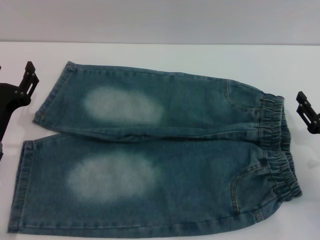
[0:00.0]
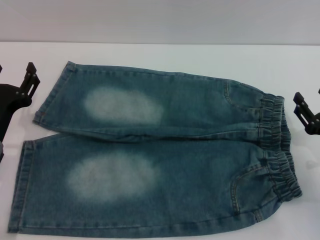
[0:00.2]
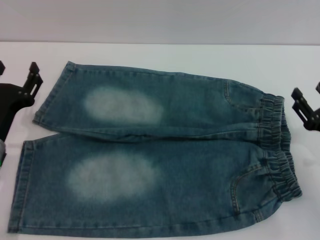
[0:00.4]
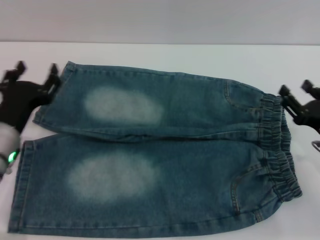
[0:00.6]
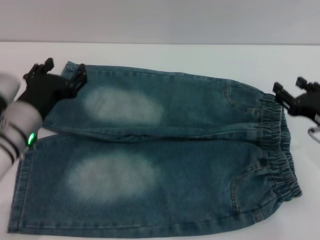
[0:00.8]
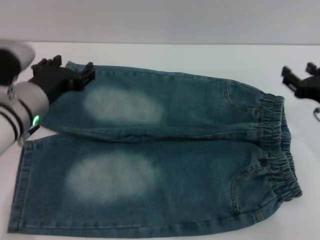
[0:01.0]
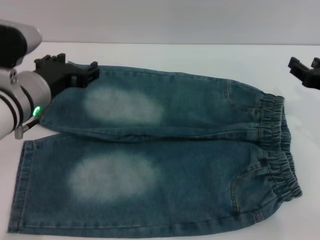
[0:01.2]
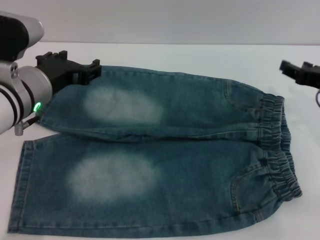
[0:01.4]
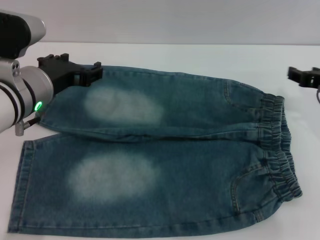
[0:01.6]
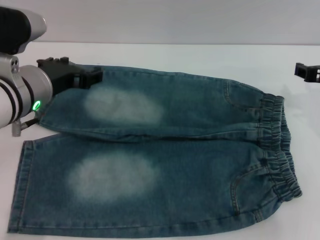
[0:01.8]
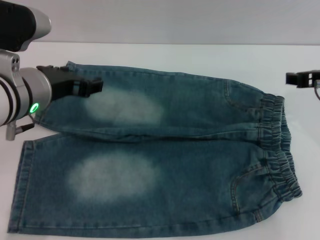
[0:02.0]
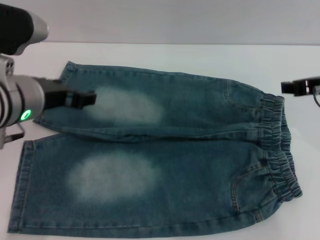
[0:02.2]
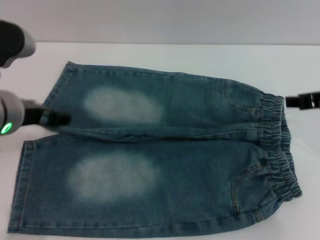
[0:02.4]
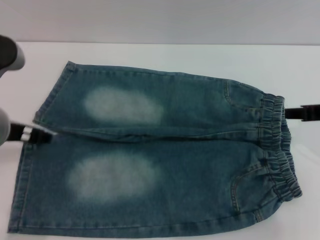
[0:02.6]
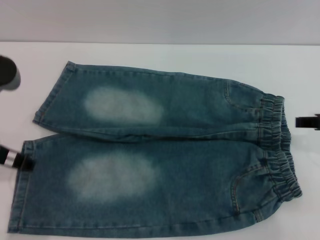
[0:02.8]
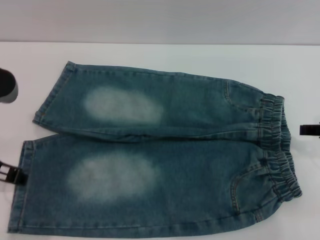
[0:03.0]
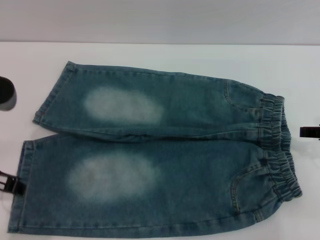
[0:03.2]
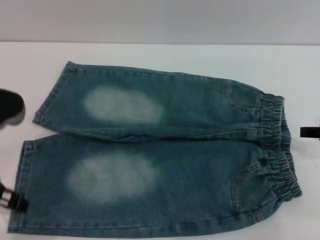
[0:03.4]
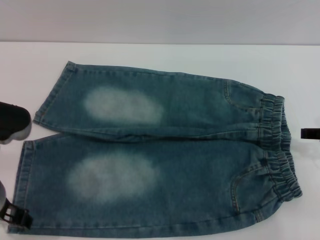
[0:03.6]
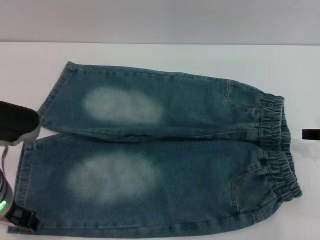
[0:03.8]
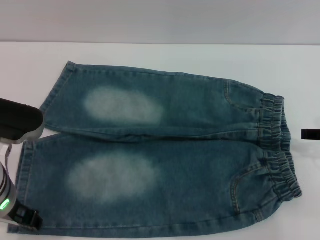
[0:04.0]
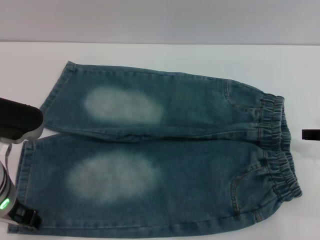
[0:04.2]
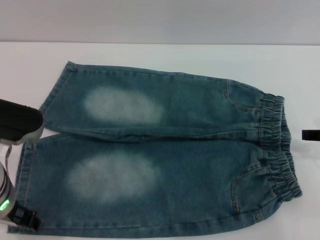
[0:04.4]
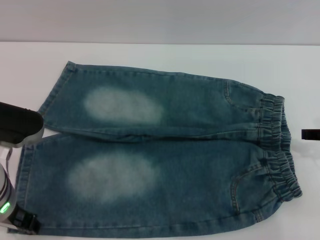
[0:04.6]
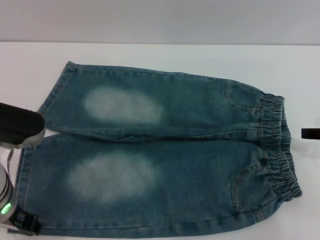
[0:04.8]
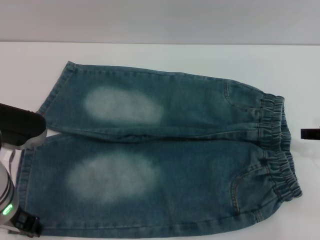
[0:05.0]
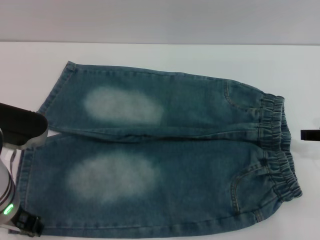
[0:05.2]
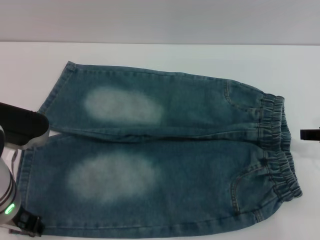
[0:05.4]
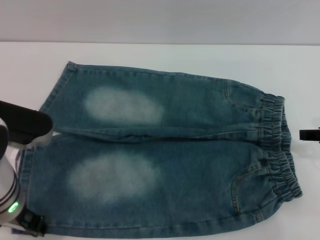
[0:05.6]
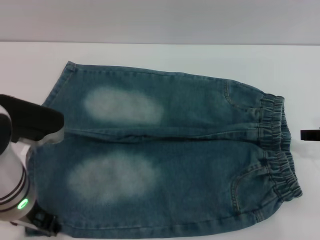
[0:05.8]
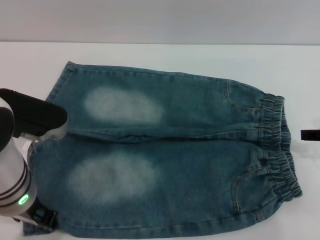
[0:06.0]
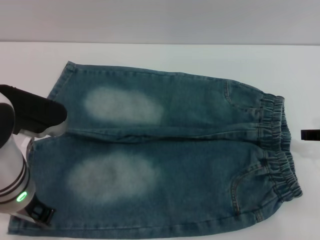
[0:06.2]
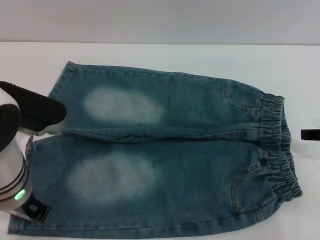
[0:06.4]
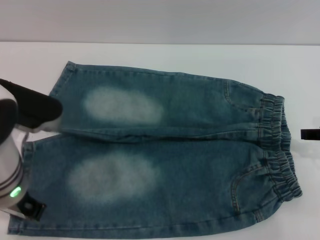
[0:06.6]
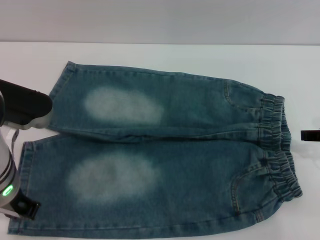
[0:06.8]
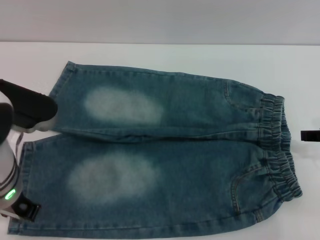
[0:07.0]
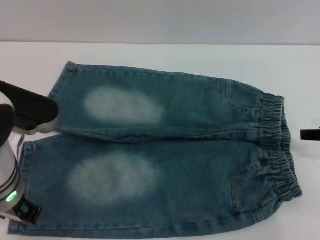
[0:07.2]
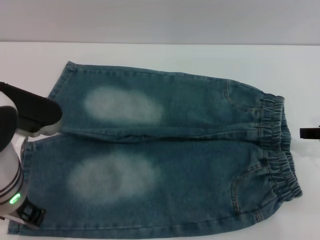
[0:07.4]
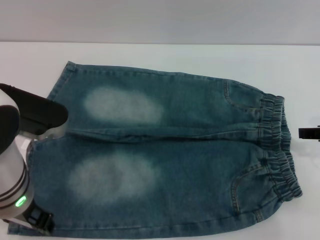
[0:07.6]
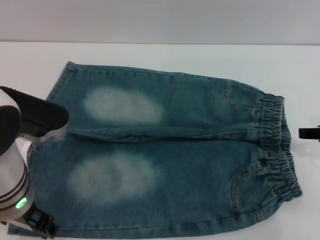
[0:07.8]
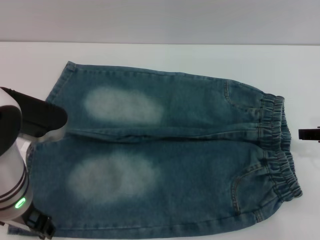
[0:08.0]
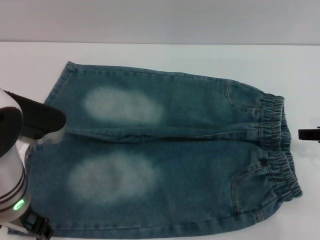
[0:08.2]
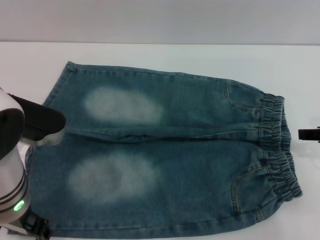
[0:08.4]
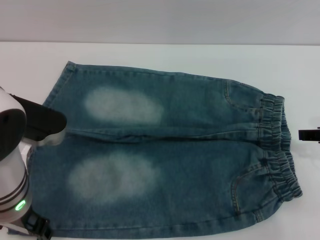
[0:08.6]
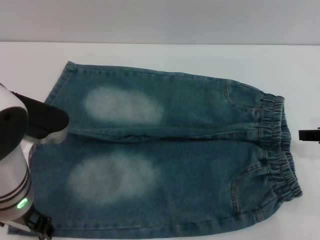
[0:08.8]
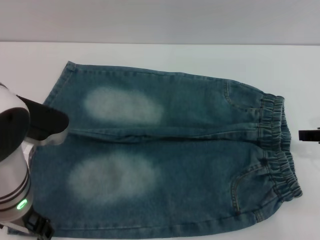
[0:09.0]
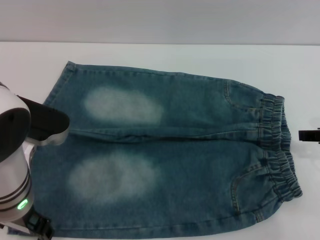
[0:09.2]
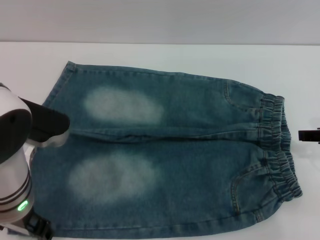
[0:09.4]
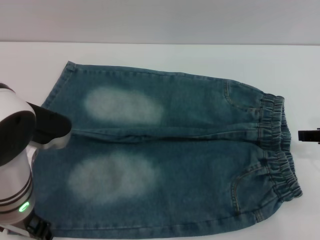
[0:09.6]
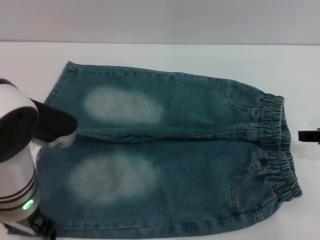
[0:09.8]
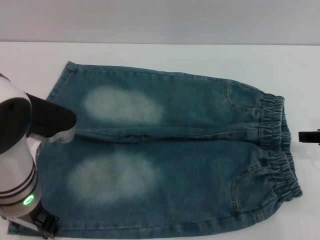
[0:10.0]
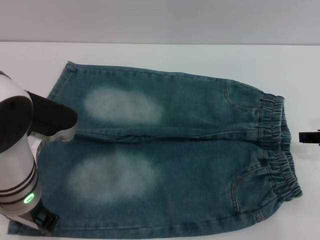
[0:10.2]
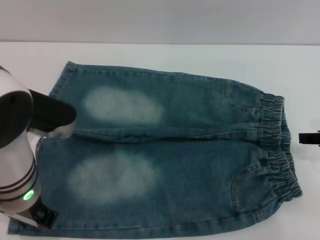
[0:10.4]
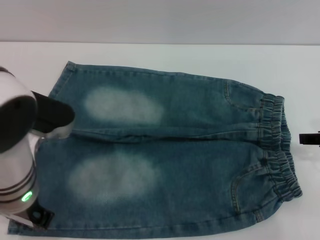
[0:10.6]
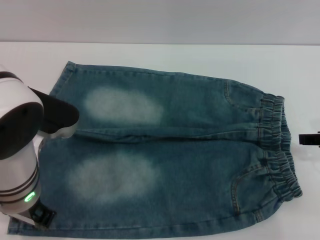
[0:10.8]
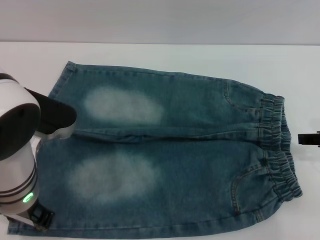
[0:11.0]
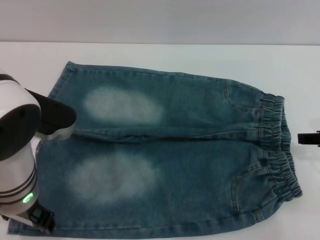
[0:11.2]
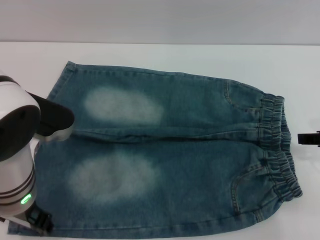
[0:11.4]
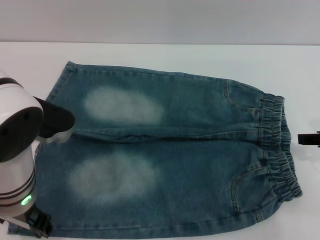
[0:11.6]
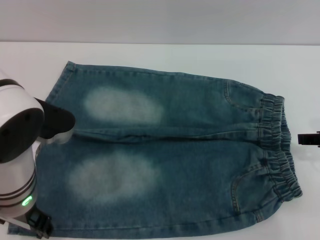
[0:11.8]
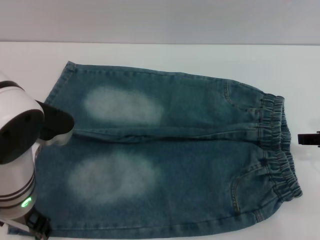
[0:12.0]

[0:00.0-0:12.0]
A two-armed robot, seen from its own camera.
0:00.0 to 0:01.6: The right gripper is displaced upward and forward by approximately 15 cm; the left gripper moves upward, to the right and forward, some 15 cm.
0:01.6 to 0:03.0: Both grippers travel together backward, about 5 cm.
0:03.0 to 0:06.0: The grippers stay close to where they were, moving slightly.
0:06.0 to 0:07.6: The left gripper closes, then opens again.
0:07.6 to 0:09.0: The left gripper opens its fingers.
0:09.0 to 0:10.4: The left gripper closes up.
0:10.4 to 0:12.0: The left gripper opens its fingers.

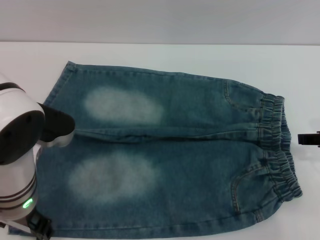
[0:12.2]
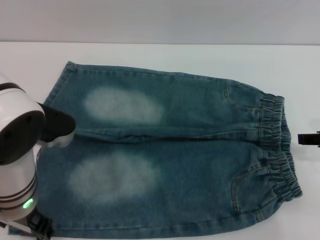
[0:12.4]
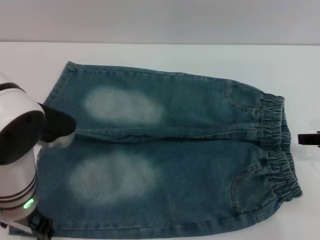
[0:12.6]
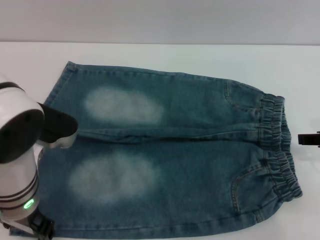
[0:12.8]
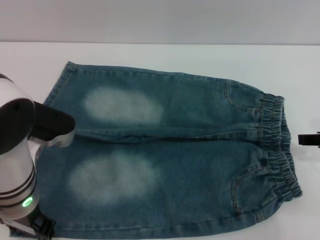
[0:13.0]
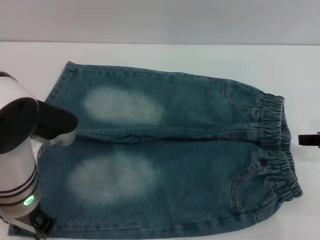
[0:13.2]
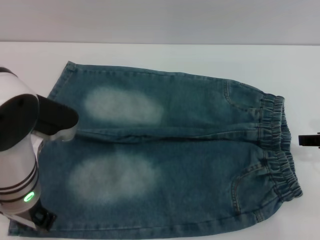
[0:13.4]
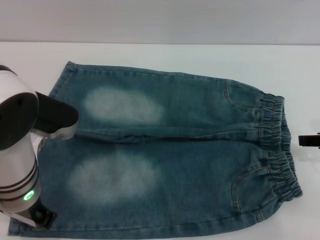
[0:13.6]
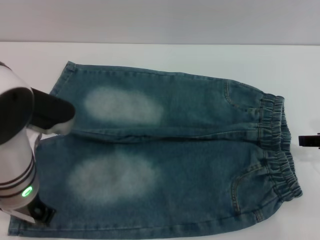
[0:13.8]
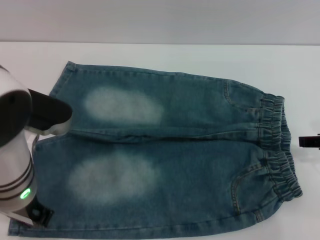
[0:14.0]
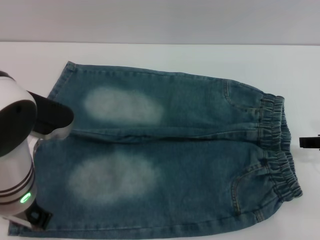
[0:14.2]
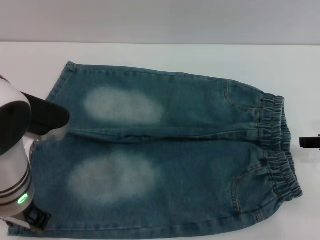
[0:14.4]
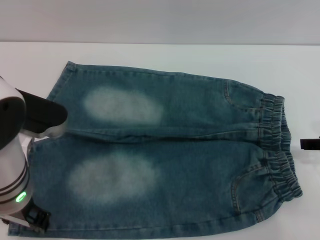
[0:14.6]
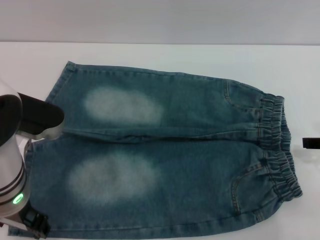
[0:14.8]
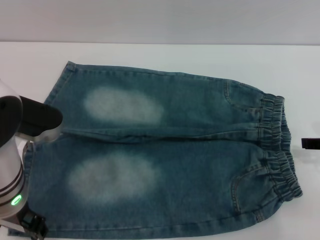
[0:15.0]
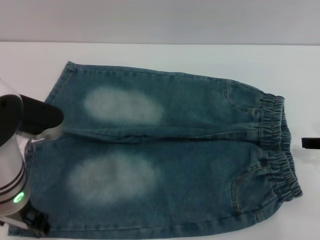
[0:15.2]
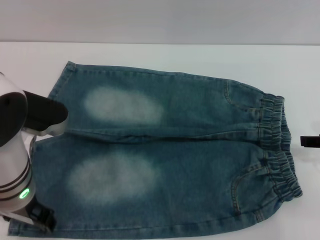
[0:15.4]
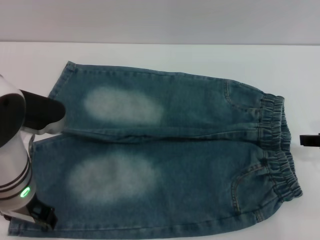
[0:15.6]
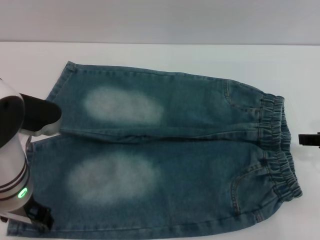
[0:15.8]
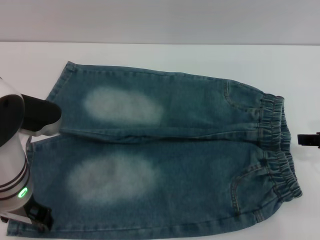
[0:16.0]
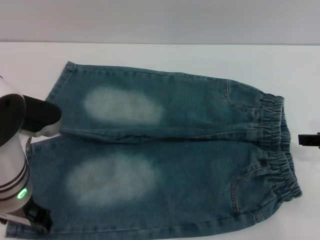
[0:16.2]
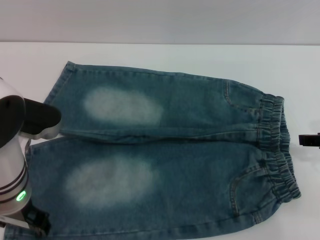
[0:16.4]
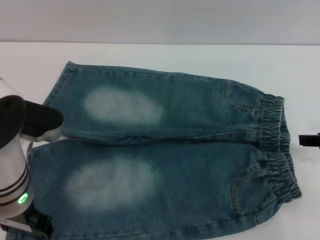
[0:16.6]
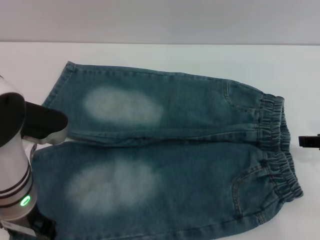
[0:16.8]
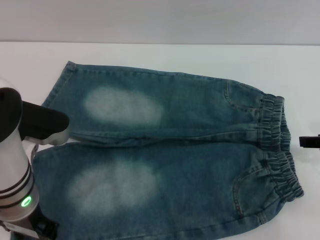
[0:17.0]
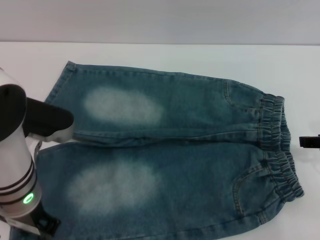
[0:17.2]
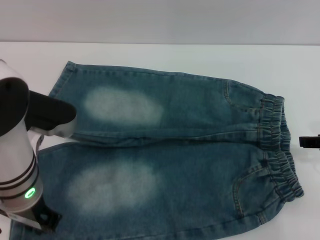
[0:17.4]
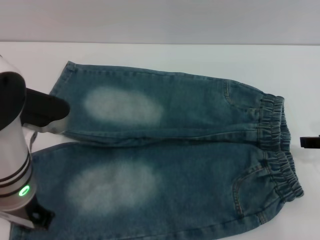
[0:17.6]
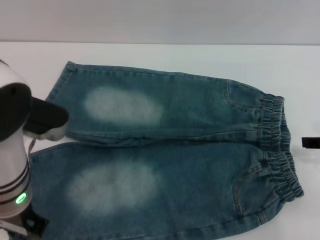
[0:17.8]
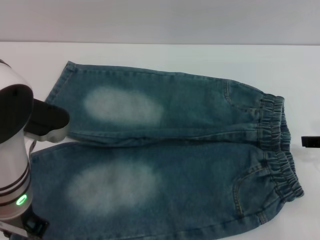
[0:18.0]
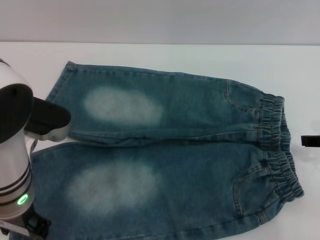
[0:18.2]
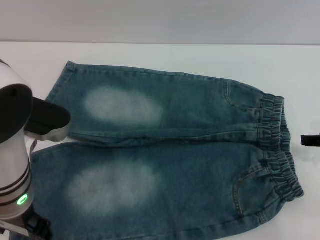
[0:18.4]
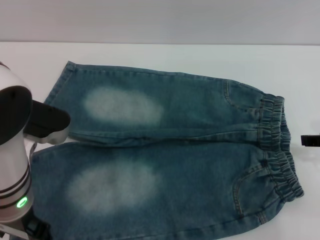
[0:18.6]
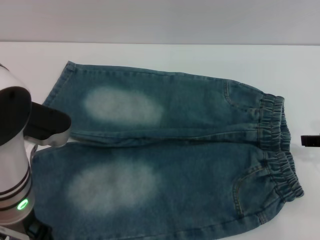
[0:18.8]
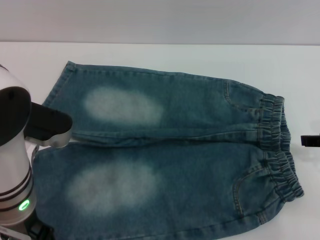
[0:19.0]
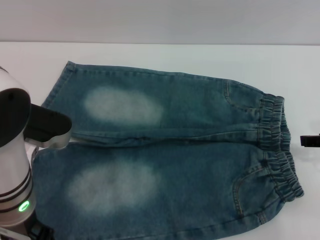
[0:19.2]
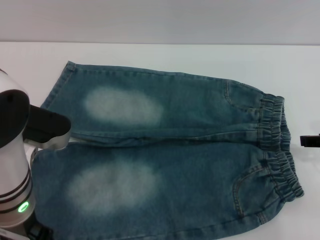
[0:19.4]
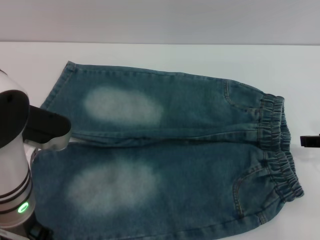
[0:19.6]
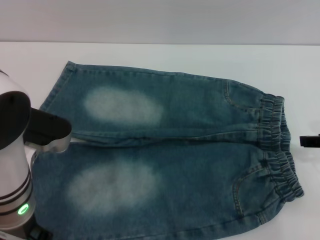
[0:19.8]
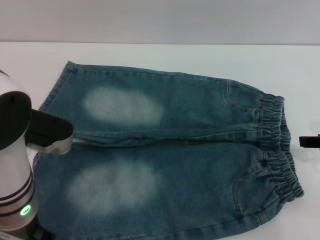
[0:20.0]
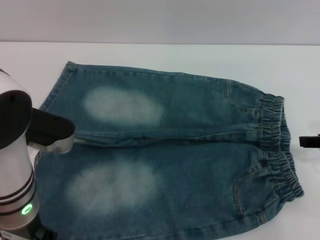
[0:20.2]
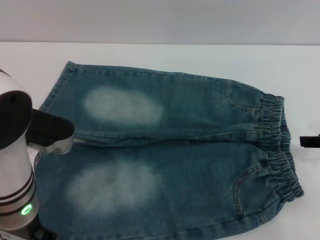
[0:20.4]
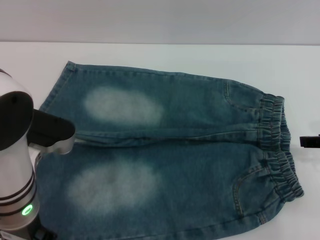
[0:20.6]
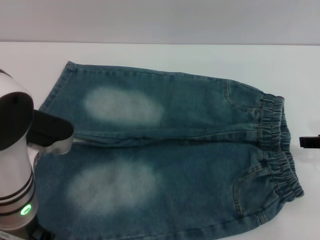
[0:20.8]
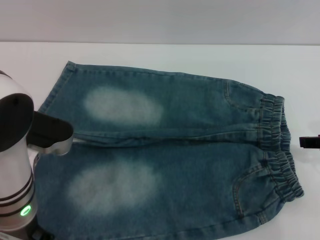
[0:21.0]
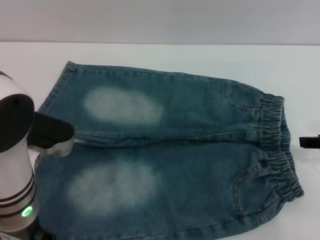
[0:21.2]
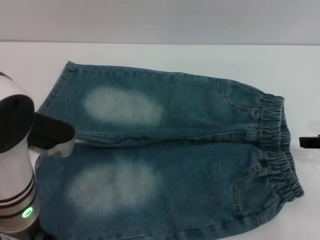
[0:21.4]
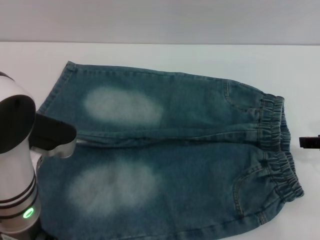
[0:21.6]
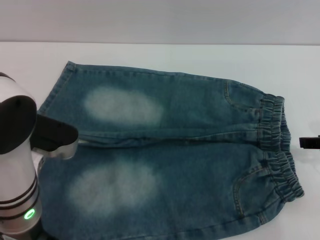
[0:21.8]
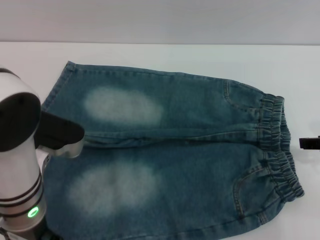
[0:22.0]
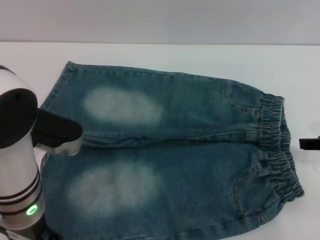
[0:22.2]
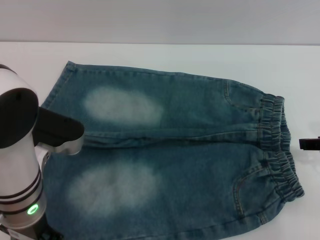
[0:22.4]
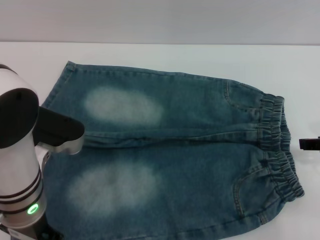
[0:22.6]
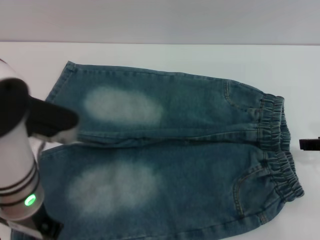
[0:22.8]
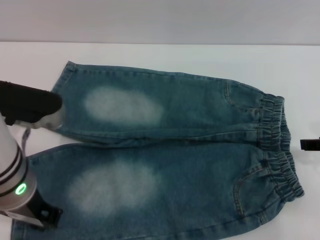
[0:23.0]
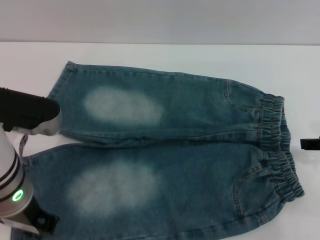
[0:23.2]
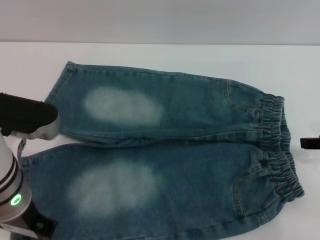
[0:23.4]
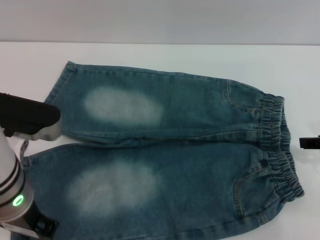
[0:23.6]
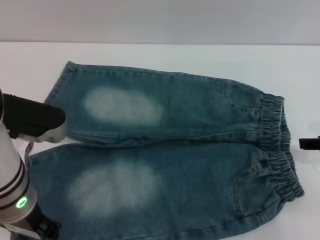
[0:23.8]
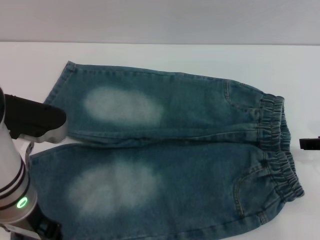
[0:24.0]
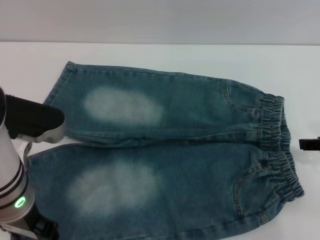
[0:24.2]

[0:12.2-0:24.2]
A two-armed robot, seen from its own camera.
0:12.2 to 0:13.8: The left gripper closes.
0:13.8 to 0:15.2: The left gripper opens.
0:15.2 to 0:16.6: Both grippers stay about where they are.
0:16.6 to 0:18.2: The left gripper closes its fingers.
0:18.2 to 0:19.8: The left gripper opens its fingers.
0:19.8 to 0:21.2: Neither gripper changes place.
0:21.2 to 0:22.6: The left gripper closes.
0:22.6 to 0:24.2: The grippers stay close to where they were, moving slightly.
